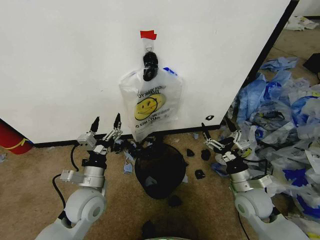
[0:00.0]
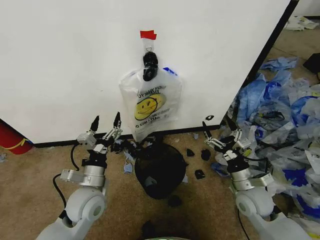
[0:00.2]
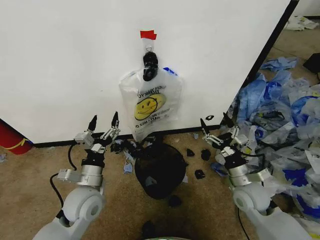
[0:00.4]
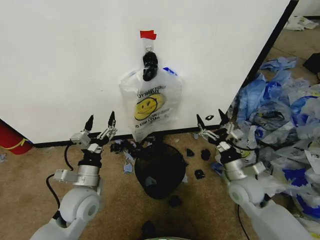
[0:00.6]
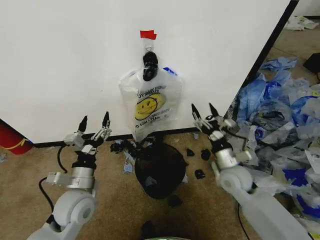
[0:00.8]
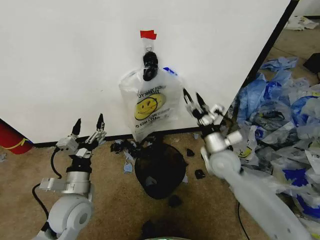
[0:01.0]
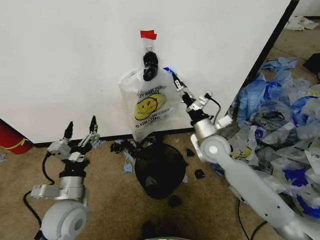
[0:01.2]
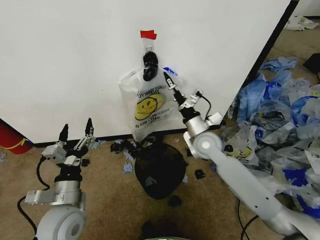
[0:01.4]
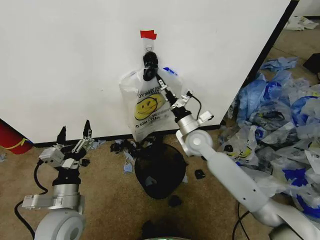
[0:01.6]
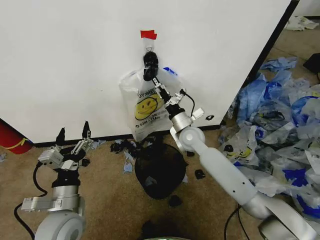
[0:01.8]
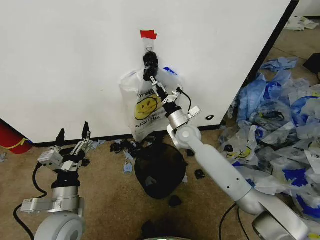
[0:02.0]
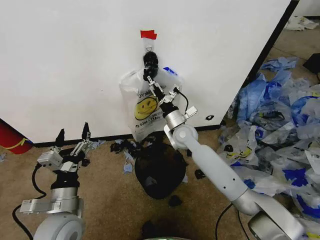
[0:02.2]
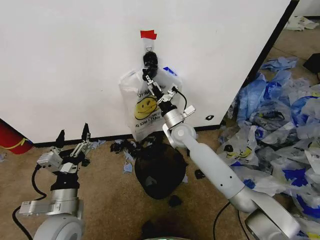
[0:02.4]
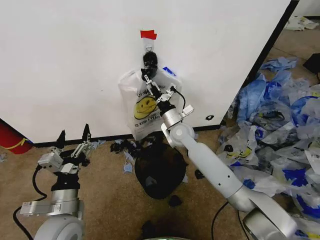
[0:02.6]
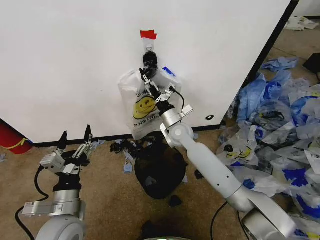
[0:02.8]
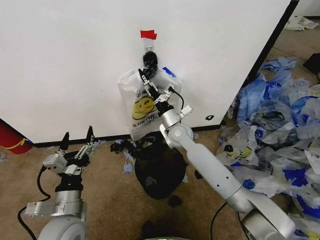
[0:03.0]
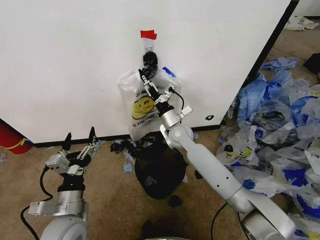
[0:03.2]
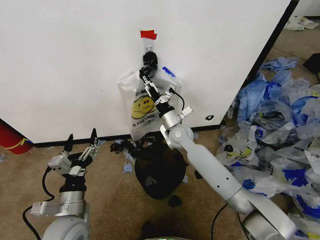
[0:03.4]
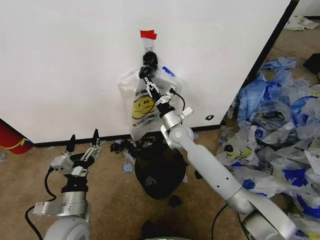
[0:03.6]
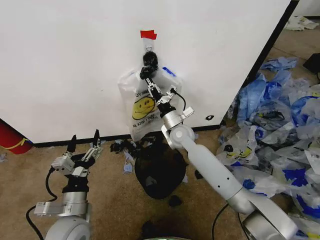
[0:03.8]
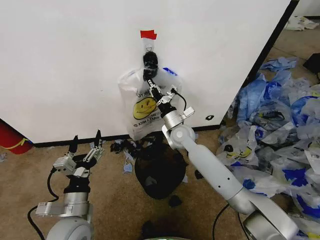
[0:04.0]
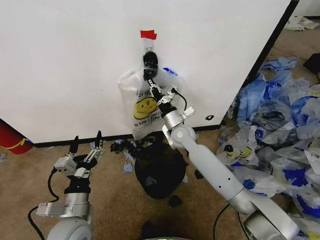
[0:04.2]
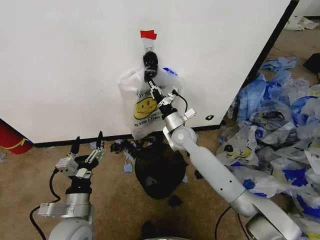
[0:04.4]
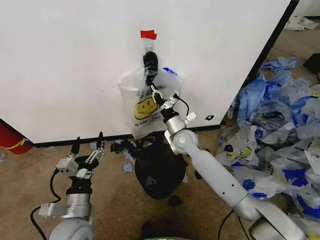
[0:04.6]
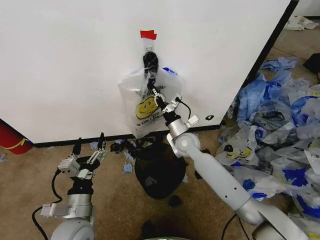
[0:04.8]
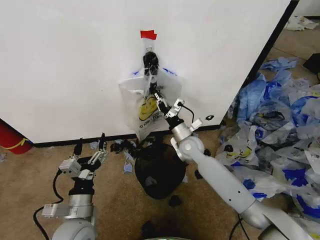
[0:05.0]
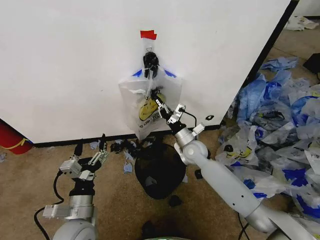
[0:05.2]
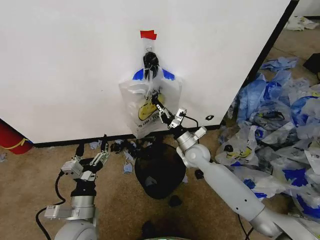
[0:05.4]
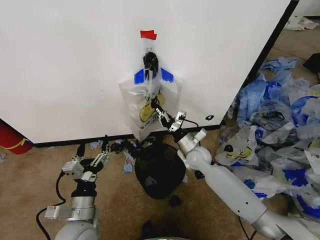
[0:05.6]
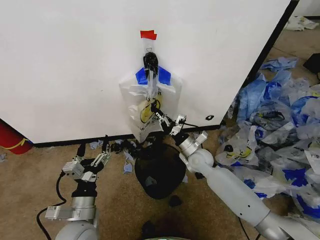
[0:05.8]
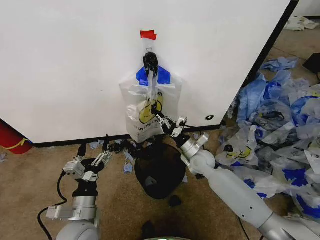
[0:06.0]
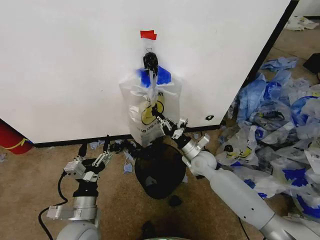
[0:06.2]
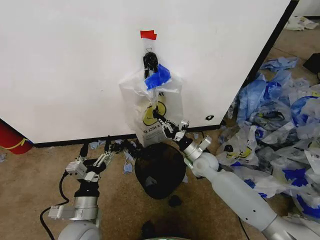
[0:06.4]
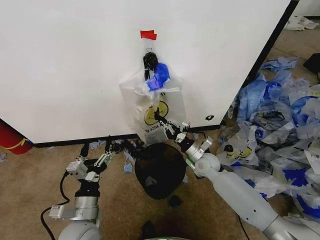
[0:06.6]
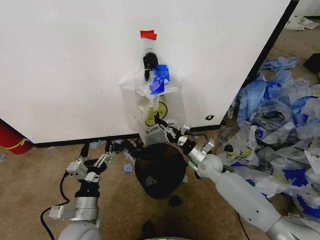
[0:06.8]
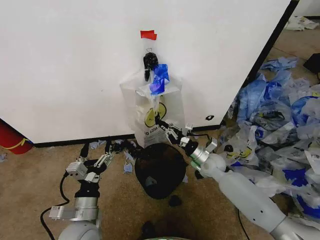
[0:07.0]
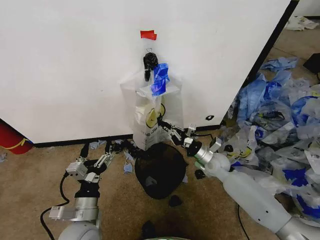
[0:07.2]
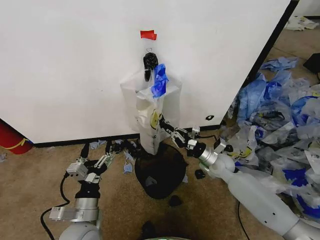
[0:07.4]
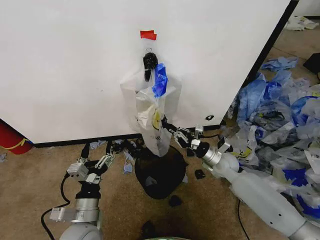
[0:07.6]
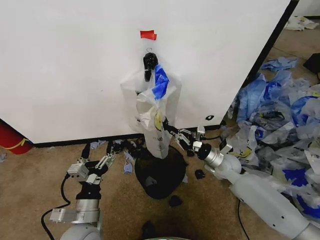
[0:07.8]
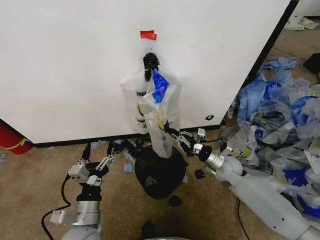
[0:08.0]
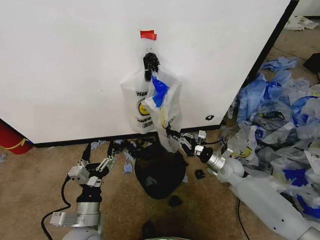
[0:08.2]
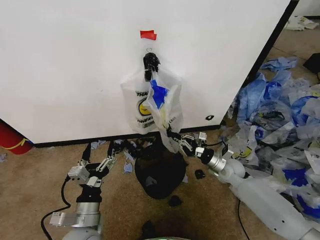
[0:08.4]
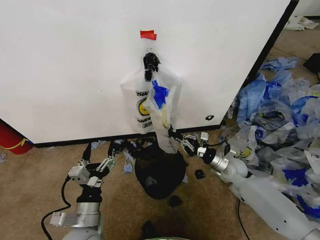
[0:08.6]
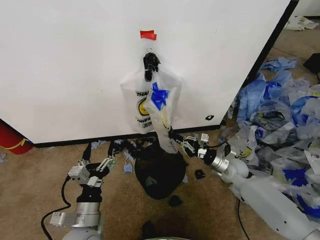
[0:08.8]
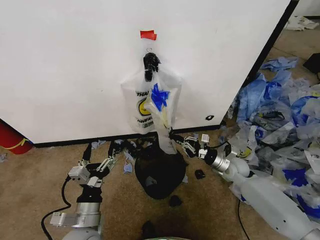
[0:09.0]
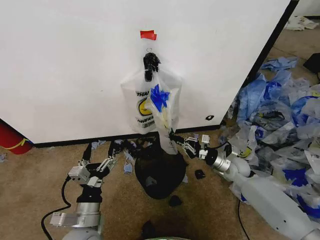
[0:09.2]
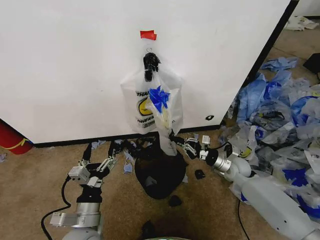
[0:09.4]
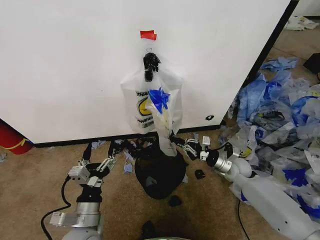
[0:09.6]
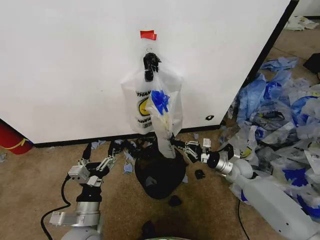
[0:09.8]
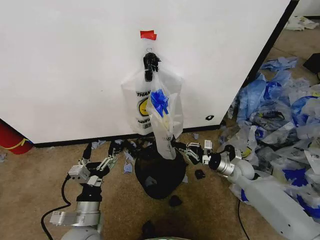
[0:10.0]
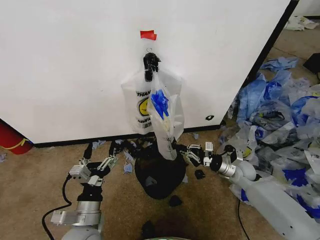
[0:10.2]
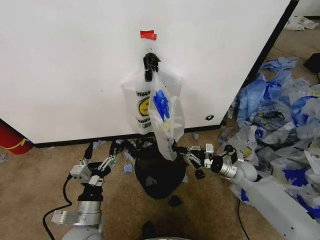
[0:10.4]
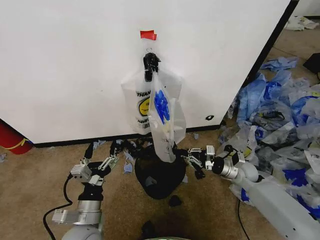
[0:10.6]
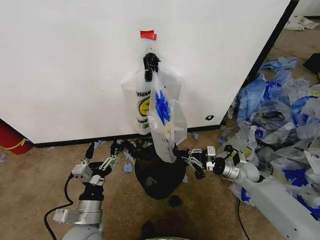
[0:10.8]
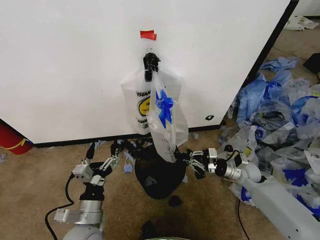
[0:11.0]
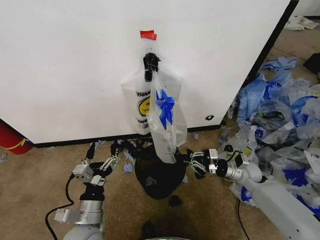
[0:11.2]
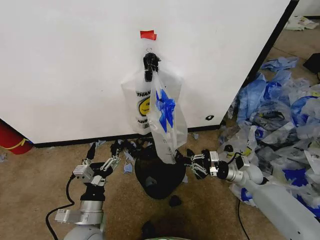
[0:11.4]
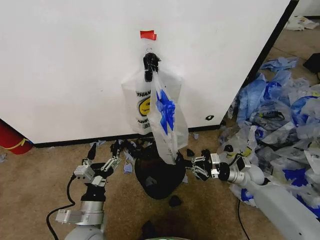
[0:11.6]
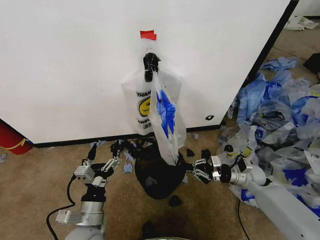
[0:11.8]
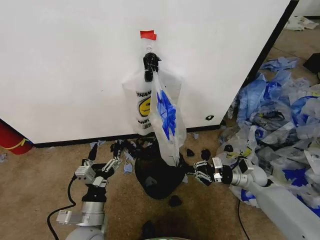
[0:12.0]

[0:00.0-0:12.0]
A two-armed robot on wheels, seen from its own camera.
Task of the whole recording: Pick up the garbage bag from the wall and place it over the trash bin.
0:01.6 to 0:03.0: The right gripper is displaced to the left by roughly 5 cm.
0:03.0 to 0:04.4: The right gripper closes.
0:04.4 to 0:06.0: The right gripper moves downward, to the right and backward, some 15 cm.
0:06.0 to 0:07.6: The right gripper heads to the right, covering roughly 10 cm.
0:07.6 to 0:09.0: The right gripper shifts by approximately 5 cm.
0:09.0 to 0:10.4: The grippers make only small movements.
0:10.4 to 0:12.0: The grippers make only small movements.

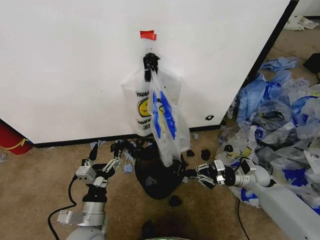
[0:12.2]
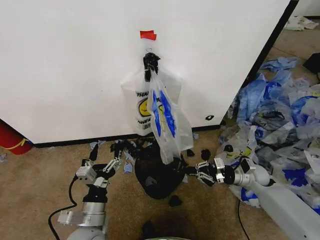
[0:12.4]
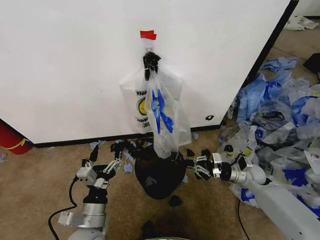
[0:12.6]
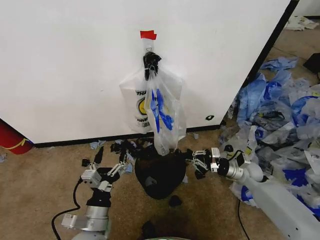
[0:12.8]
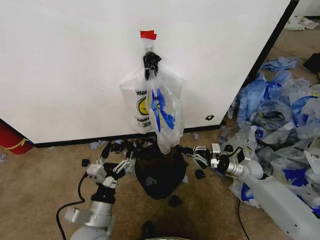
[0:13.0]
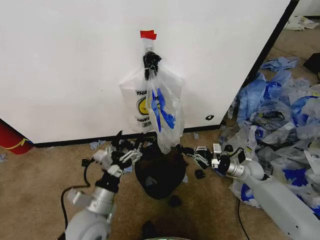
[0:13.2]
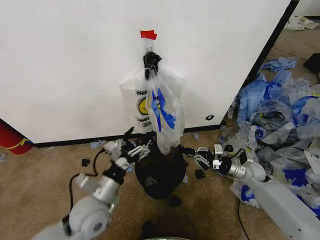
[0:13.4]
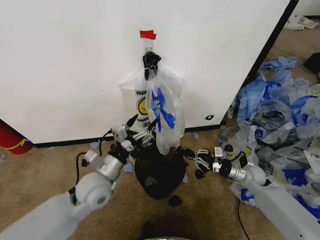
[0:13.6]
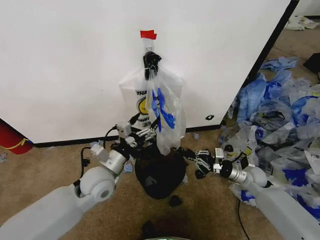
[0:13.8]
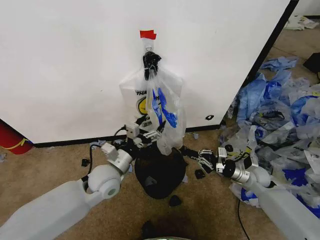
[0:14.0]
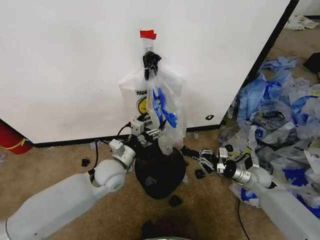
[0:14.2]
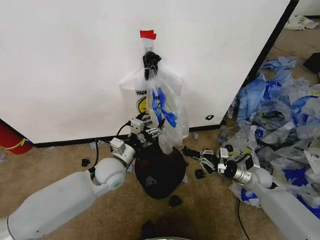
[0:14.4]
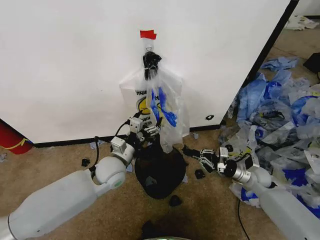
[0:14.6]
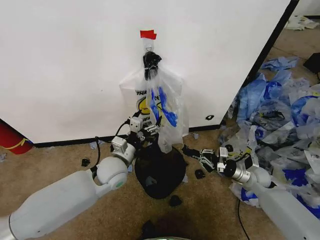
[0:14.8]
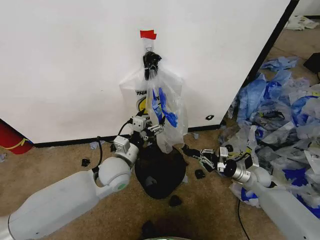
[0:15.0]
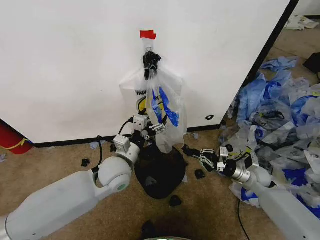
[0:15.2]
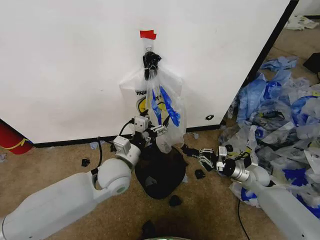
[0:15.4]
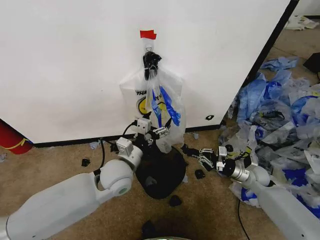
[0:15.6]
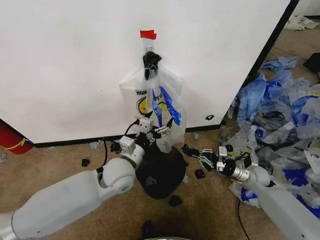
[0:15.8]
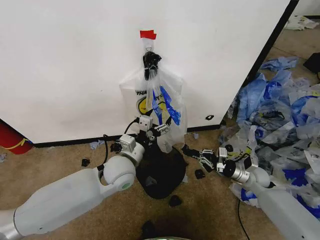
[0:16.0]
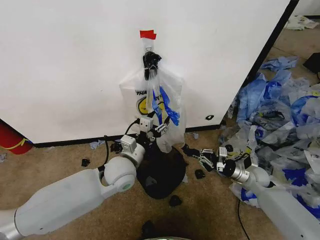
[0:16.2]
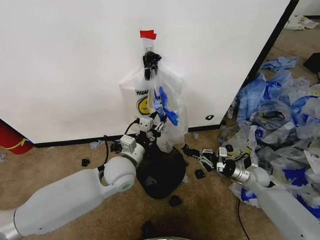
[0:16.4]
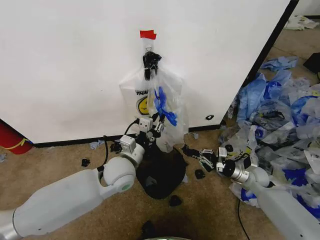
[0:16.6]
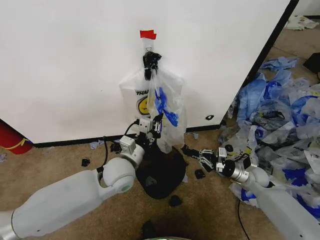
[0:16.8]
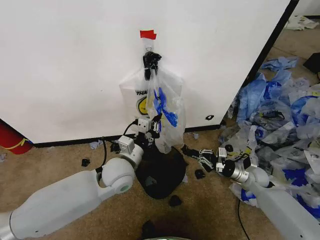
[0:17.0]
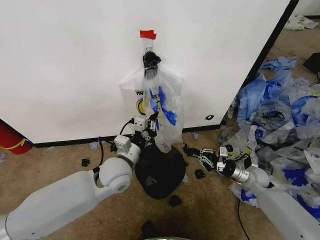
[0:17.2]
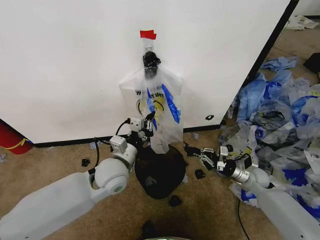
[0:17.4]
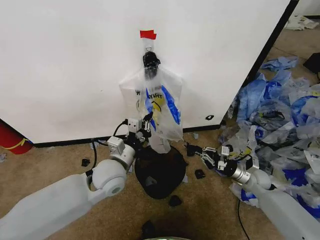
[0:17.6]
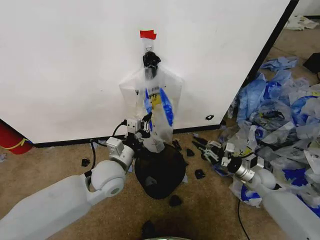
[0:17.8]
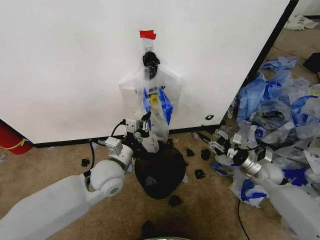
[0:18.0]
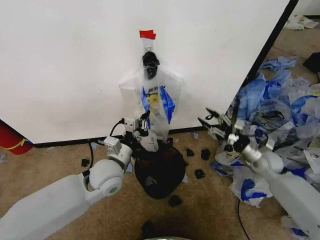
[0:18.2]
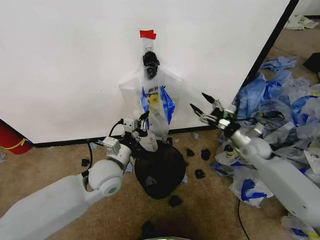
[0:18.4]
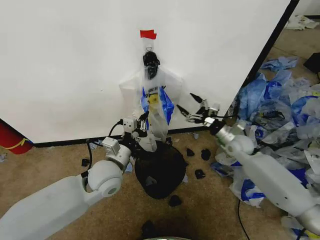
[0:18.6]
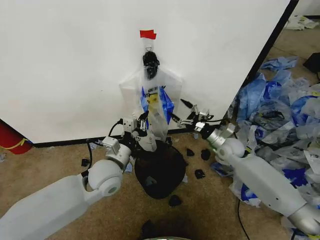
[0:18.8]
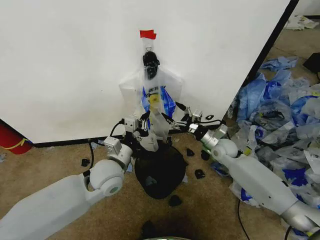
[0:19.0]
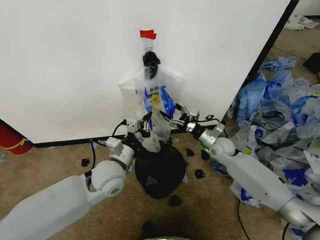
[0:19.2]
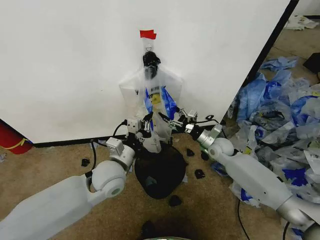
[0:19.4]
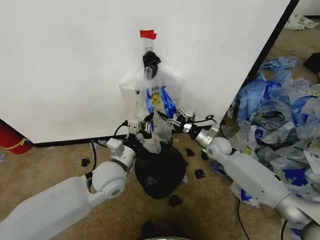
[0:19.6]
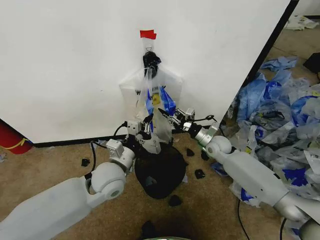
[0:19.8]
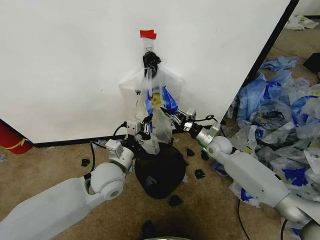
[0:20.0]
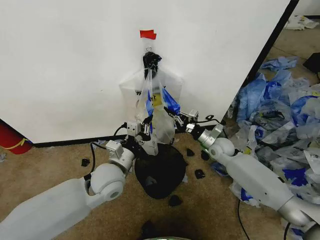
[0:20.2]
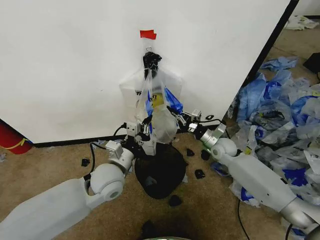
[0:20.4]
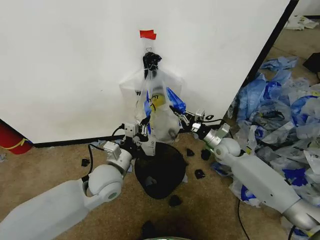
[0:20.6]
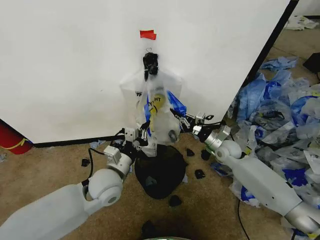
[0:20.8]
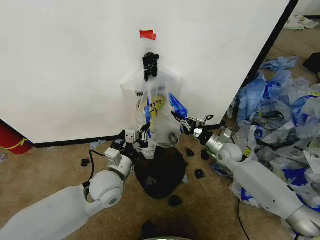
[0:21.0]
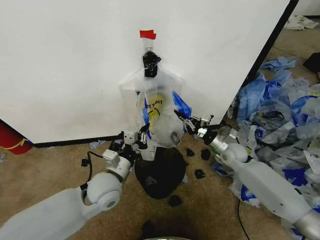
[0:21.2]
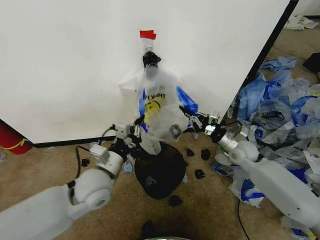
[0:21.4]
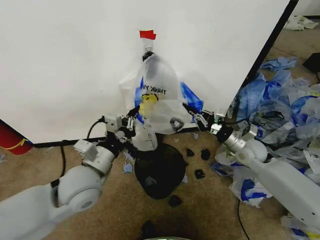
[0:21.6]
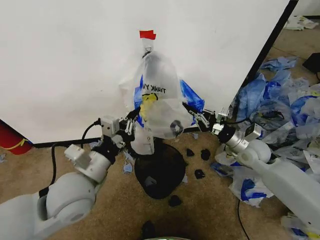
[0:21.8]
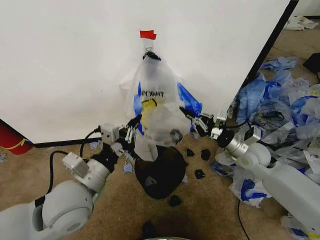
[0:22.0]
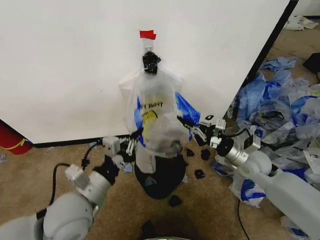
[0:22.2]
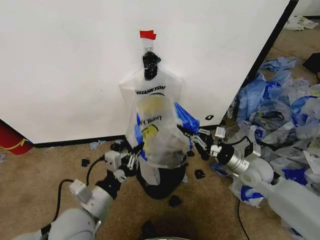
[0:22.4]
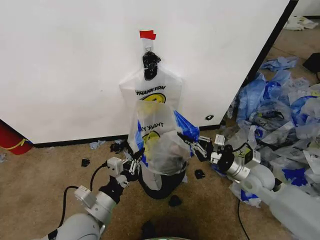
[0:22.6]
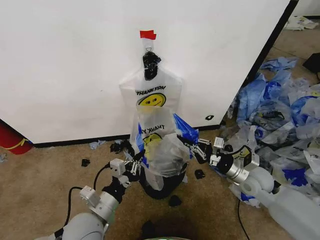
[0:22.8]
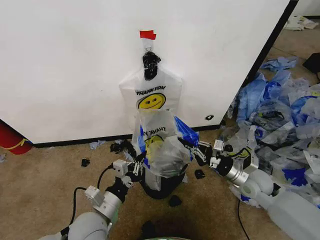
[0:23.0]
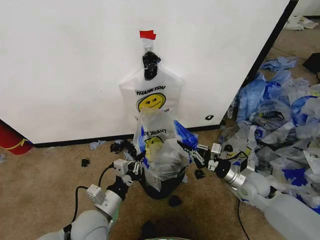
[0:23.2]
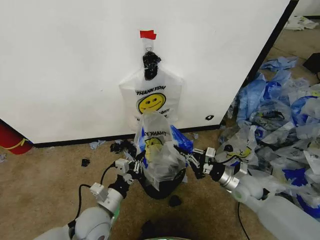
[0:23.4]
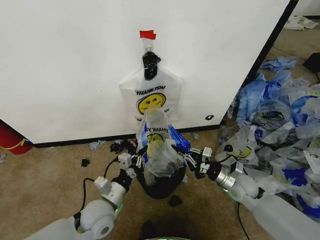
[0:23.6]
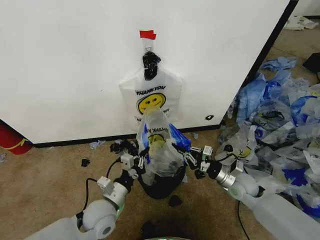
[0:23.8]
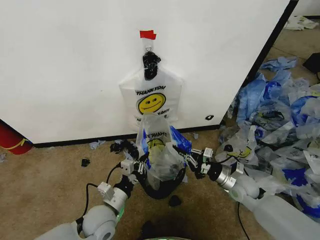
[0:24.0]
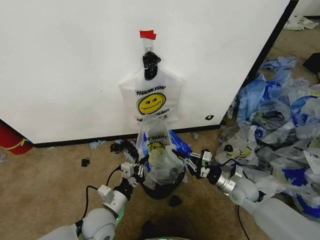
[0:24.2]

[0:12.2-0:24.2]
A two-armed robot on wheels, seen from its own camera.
Task of the whole recording: Pick up the garbage bag from the wall and place it over the trash bin.
0:12.2 to 0:13.8: The left gripper shifts approximately 15 cm forward and upward.
0:13.8 to 0:15.2: The left gripper shifts roughly 5 cm to the right.
0:15.2 to 0:16.6: The left gripper closes its fingers.
0:16.6 to 0:18.2: The right gripper shifts some 10 cm upward, and opens.
0:18.2 to 0:19.8: The right gripper goes some 15 cm to the left and forward, and opens, then closes again.
0:19.8 to 0:21.2: The right gripper shifts by approximately 5 cm.
0:21.2 to 0:22.6: Both grippers travel together backward, approximately 10 cm.
0:22.6 to 0:24.2: Both grippers travel together downward, some 10 cm.
